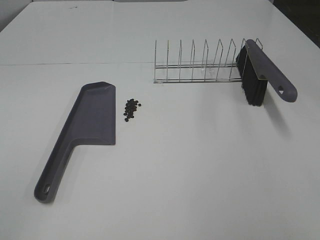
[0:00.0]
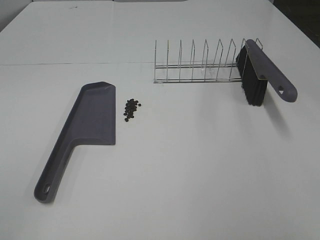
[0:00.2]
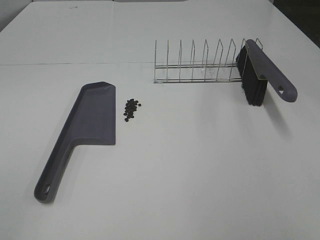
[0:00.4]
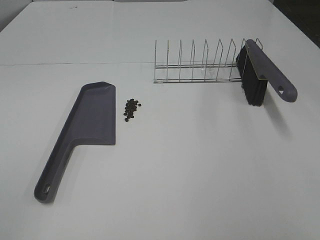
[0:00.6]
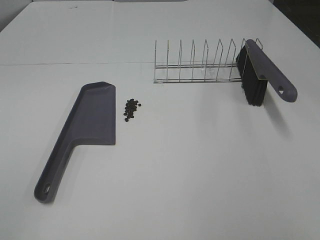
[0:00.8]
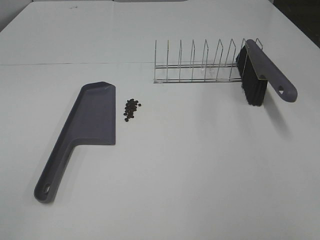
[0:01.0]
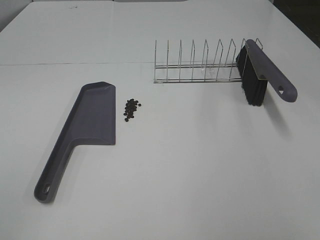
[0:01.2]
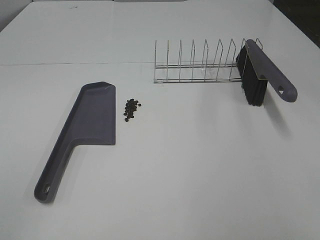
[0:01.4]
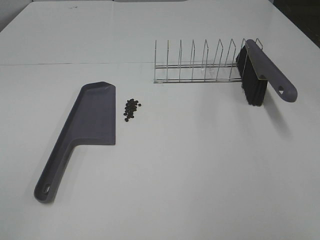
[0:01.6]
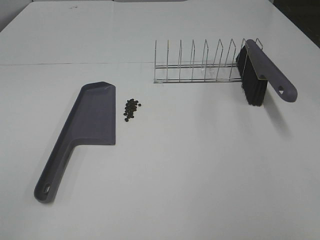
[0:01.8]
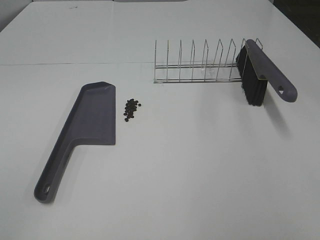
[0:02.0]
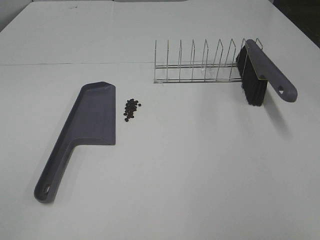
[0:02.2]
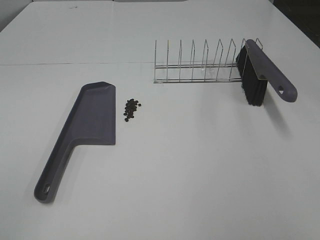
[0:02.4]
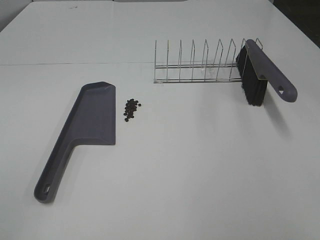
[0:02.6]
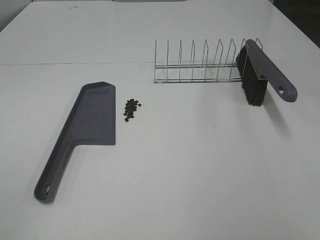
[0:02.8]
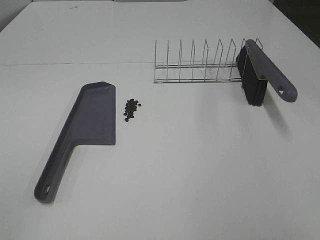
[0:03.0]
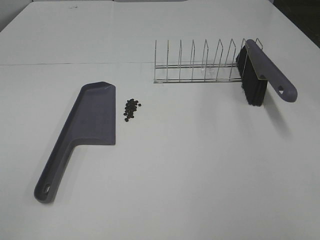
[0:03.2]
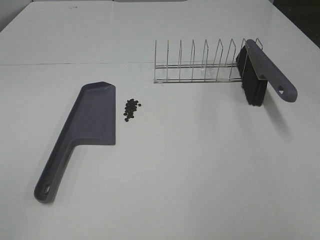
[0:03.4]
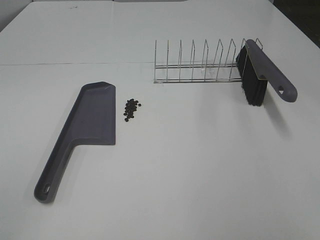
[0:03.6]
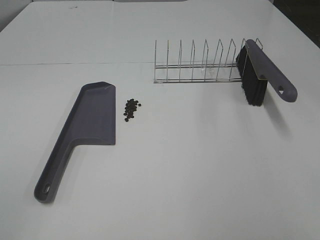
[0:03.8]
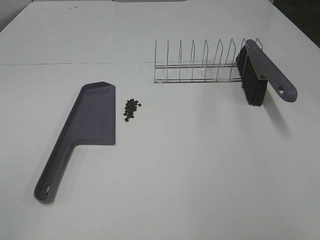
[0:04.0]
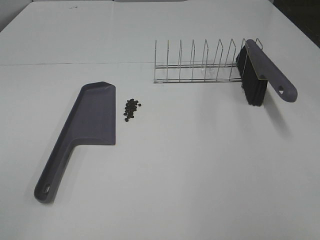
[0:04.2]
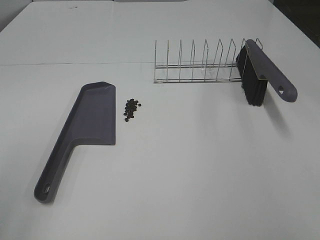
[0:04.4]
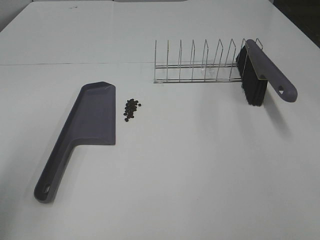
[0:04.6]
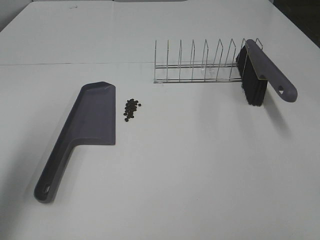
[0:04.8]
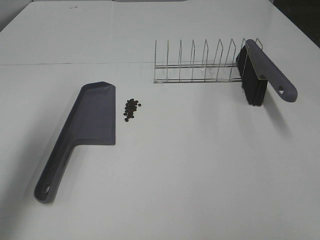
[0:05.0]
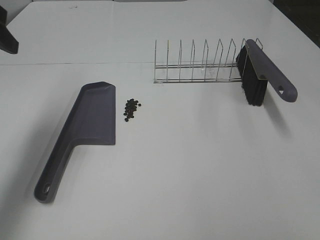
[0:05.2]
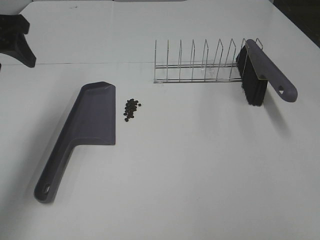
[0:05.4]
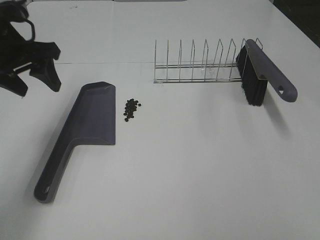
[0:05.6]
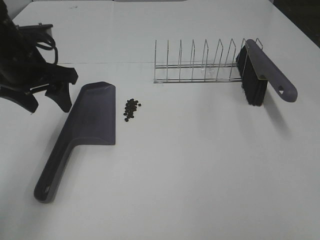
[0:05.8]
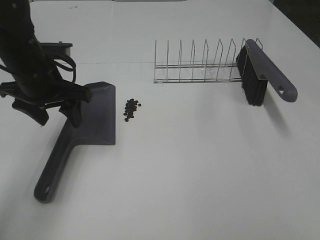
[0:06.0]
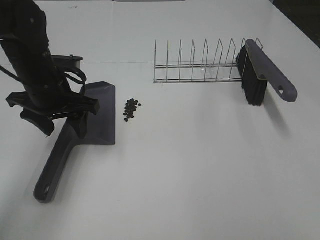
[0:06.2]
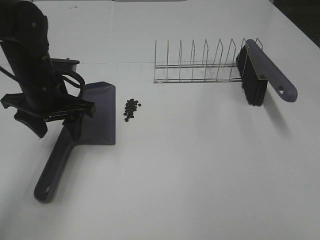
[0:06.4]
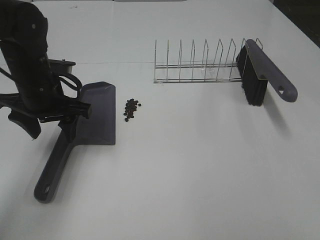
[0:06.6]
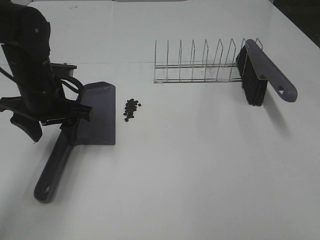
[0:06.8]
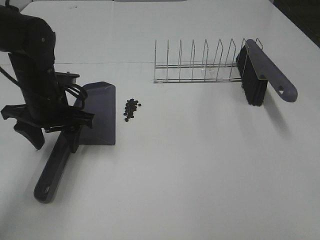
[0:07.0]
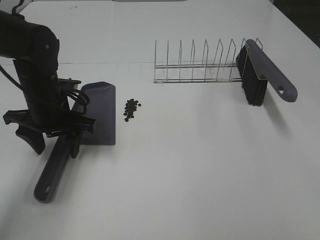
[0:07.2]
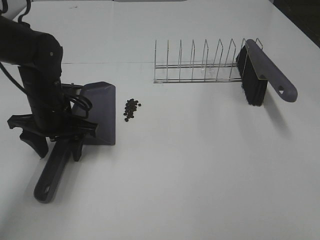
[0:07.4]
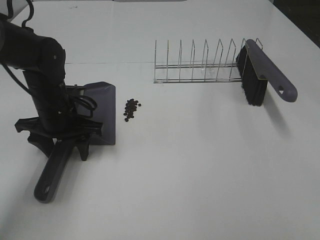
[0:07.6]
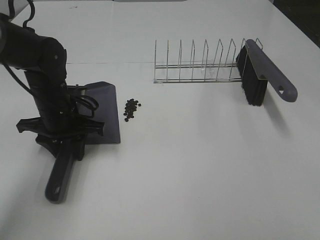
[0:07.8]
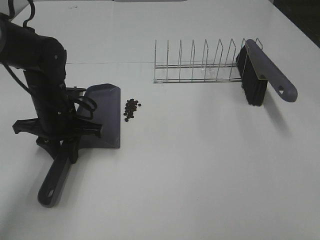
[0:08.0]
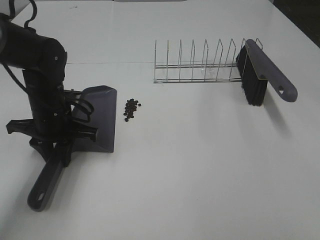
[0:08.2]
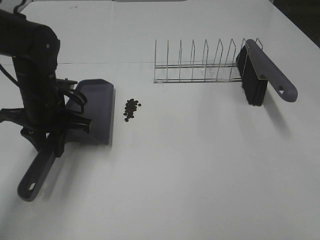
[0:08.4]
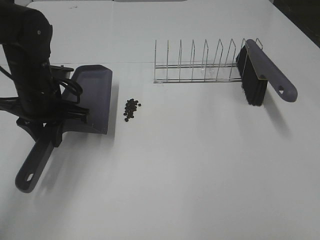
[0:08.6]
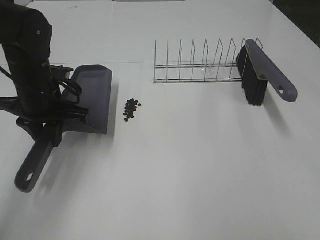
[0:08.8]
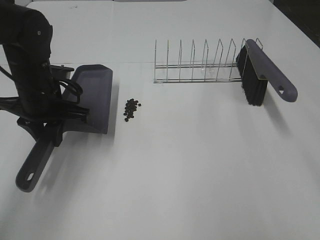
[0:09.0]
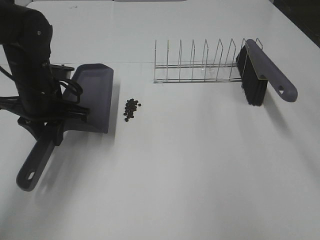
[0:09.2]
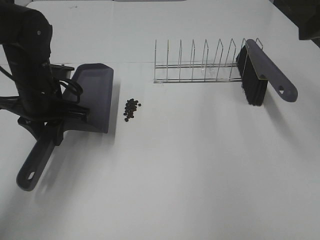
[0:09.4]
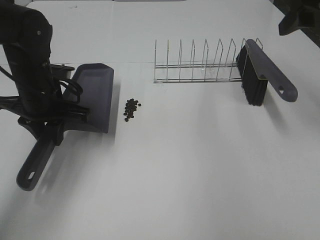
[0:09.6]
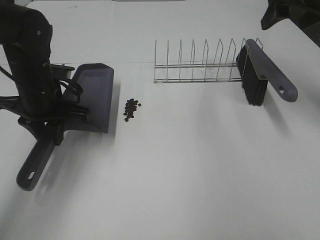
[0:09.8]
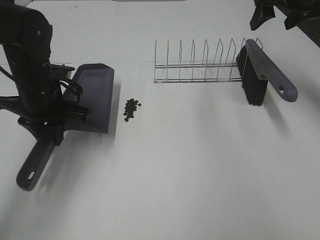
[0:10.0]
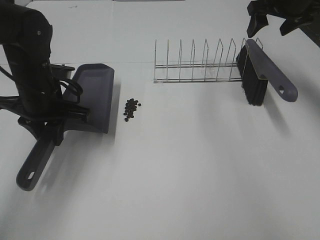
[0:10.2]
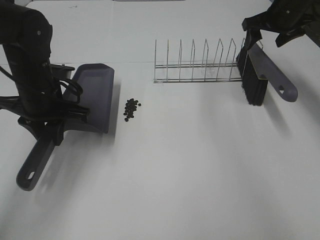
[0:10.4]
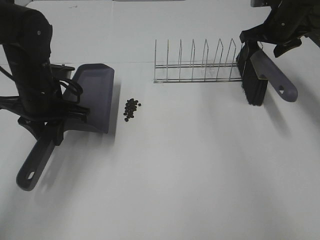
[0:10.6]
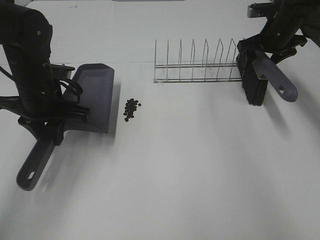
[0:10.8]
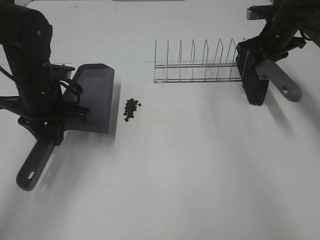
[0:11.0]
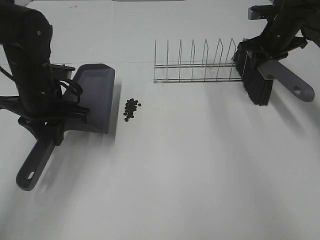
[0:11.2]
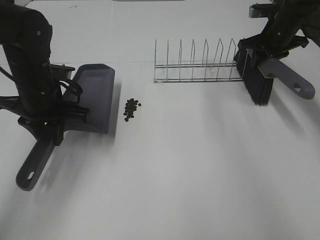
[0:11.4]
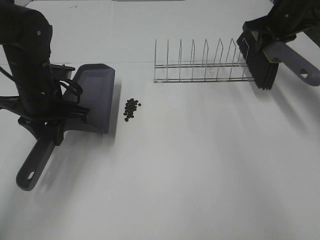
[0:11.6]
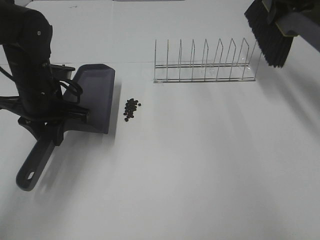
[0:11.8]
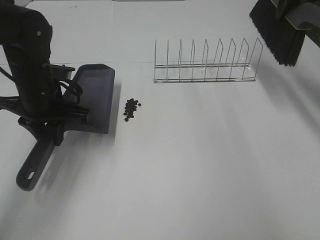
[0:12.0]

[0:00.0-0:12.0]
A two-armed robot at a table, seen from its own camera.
Task of the whole recording: Sweep Coffee Bean.
Step, 0:00.0 to 0:08.0: Left hand: grab the dustpan.
Step, 0:08.6 to 0:11.2: Right hand:grab the broom.
0:00.0 to 0:03.0: Neither gripper changes place.
0:04.4 to 0:06.0: The left gripper moves forward, downward and to the right, some 35 cm.
0:06.0 to 0:07.6: The left gripper is displaced downward by approximately 10 cm.
0:07.6 to 0:09.0: The left gripper heads upward, covering approximately 5 cm, and closes up; the right gripper is displaced forward by approximately 15 cm.
0:09.0 to 0:10.4: The right gripper travels forward by approximately 40 cm.
0:10.4 to 0:12.0: The right gripper heads upward, covering approximately 10 cm, and closes its fingers.

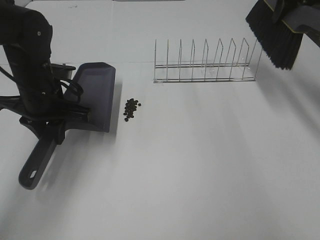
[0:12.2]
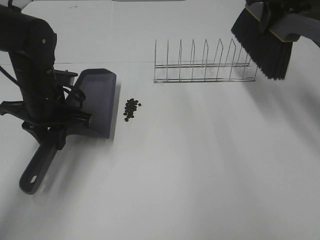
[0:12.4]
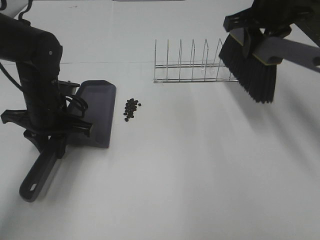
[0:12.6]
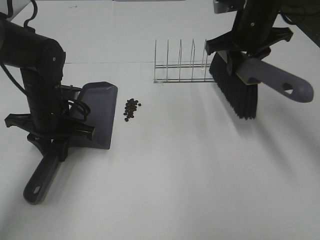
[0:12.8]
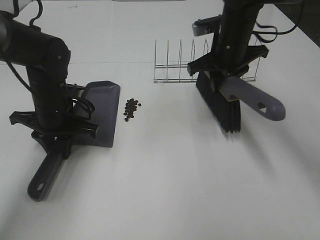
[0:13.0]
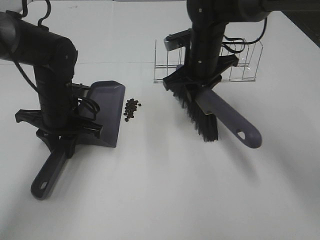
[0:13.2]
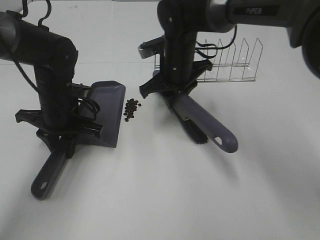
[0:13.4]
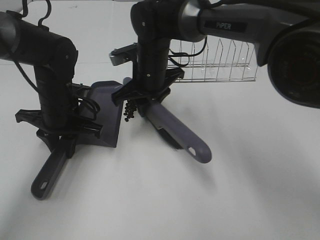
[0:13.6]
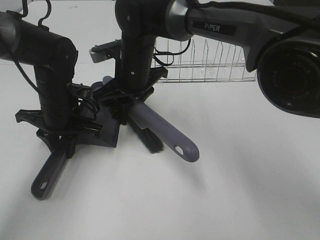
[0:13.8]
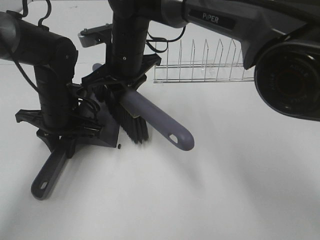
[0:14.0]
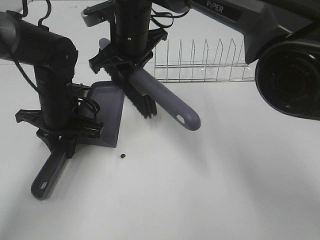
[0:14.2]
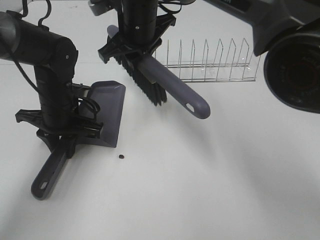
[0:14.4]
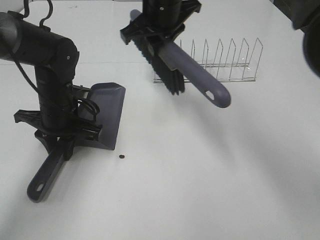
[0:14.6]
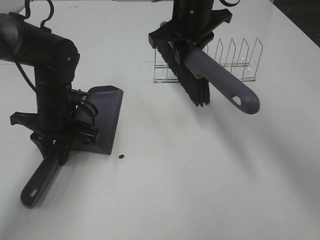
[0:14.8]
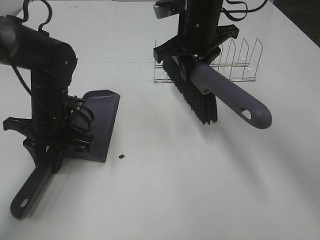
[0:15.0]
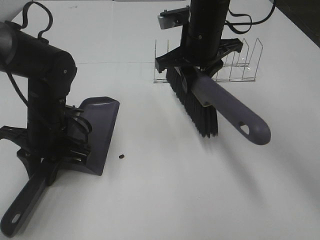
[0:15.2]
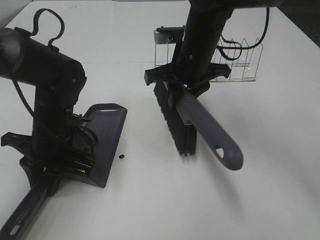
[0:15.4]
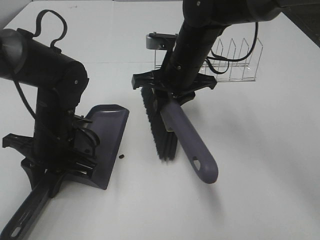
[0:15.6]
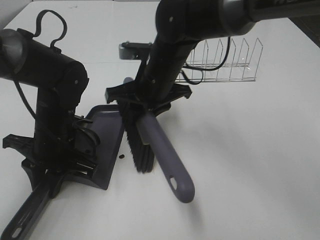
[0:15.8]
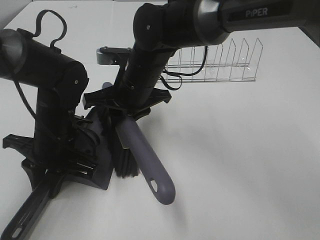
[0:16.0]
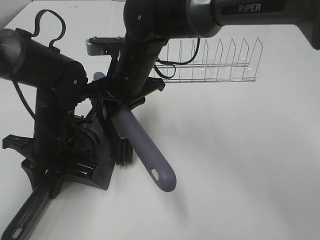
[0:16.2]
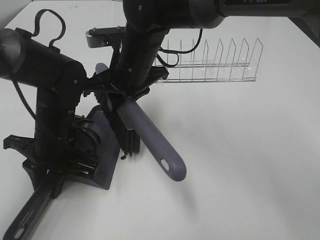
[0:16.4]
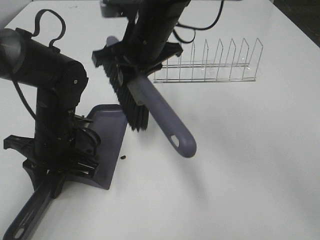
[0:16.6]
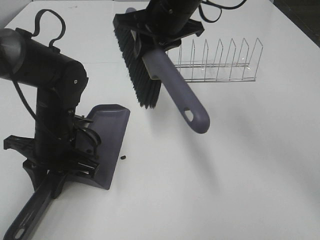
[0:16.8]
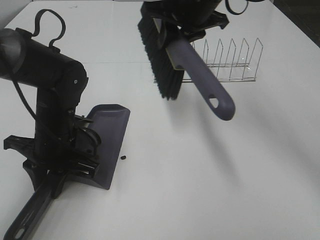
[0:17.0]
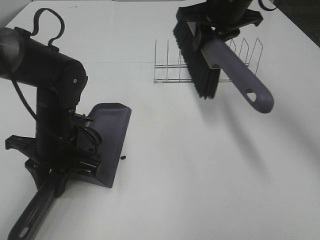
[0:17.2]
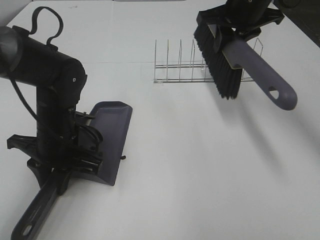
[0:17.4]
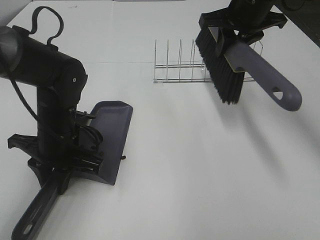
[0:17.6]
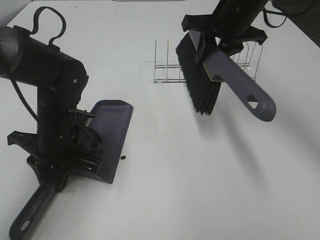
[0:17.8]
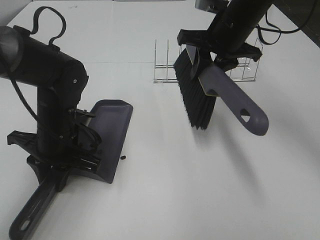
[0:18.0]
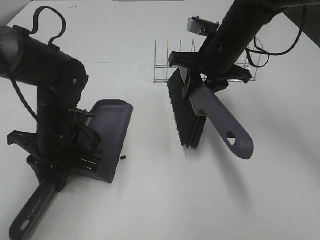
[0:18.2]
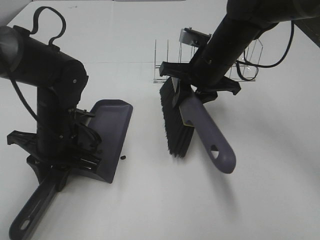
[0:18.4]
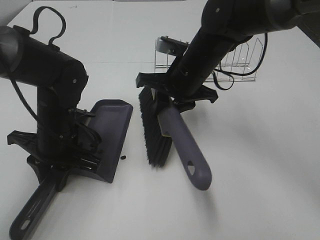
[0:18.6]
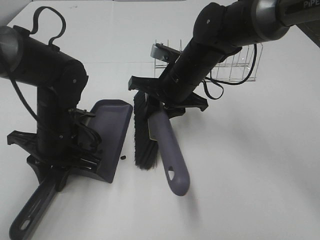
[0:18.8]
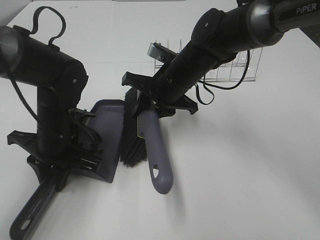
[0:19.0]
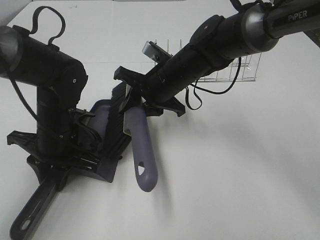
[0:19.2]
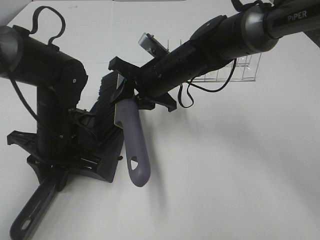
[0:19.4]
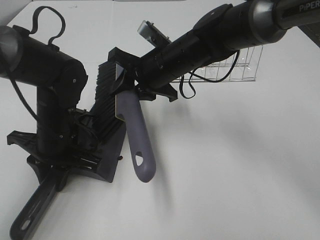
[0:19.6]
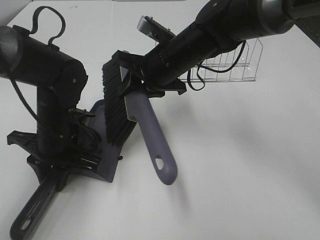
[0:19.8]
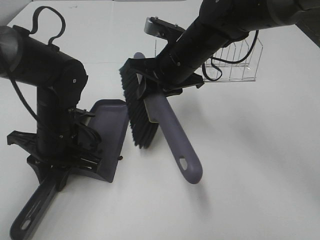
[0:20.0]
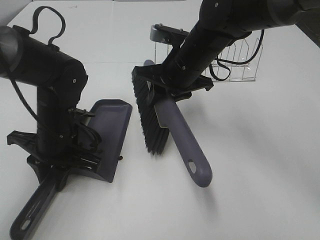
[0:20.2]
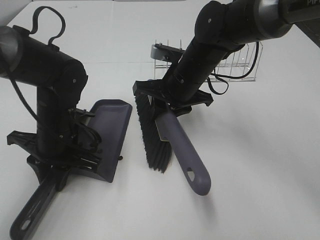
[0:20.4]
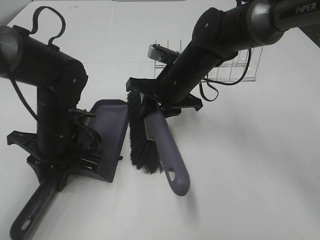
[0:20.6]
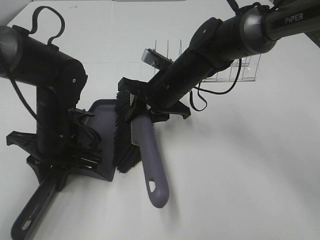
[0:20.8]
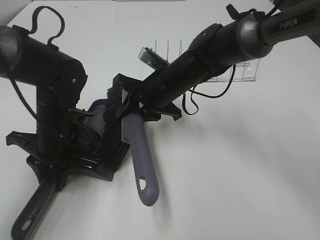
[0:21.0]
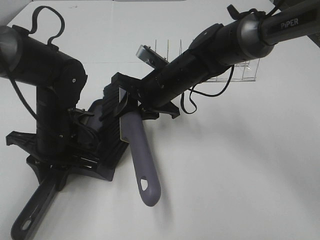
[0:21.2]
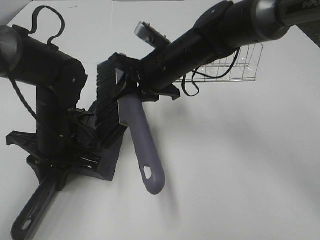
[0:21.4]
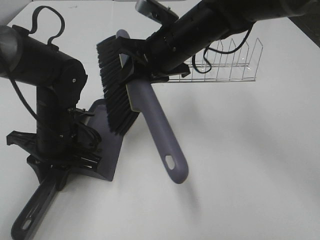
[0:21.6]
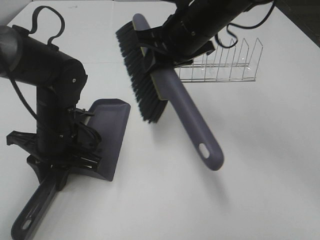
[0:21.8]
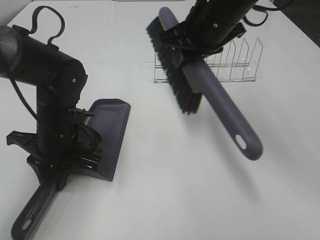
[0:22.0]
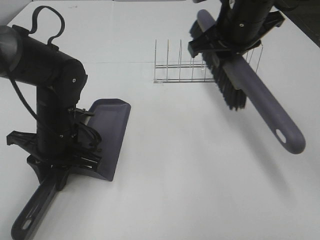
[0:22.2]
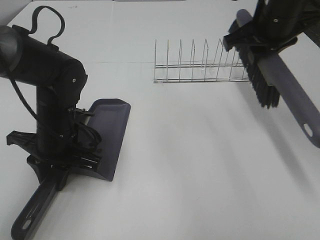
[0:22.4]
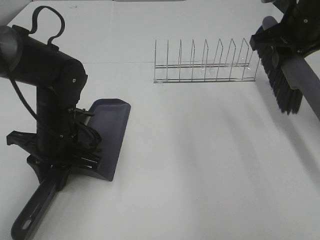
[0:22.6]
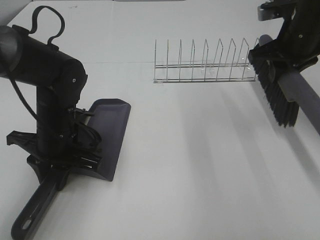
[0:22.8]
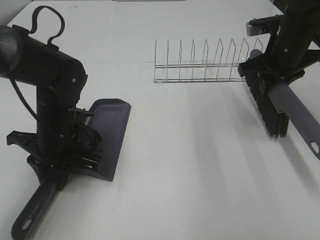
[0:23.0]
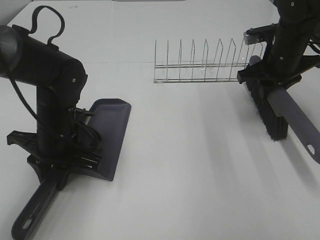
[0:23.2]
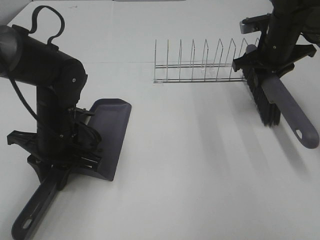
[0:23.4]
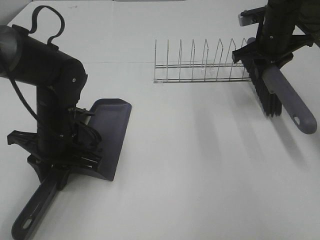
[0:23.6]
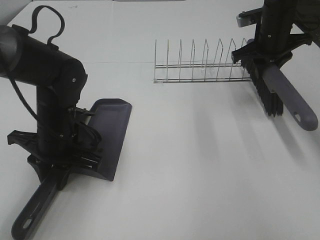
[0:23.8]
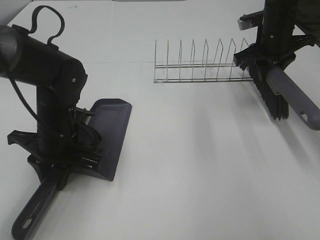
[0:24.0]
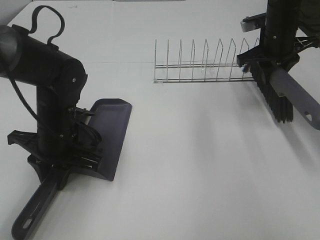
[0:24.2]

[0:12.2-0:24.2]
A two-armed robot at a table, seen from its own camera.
Task of the whole recording: Sweep Coffee Bean.
Step, 0:12.2 to 0:21.4: Right hand:sweep the coffee beans into the dustpan.
0:12.2 to 0:13.8: The left gripper shifts approximately 5 cm downward; the right gripper goes roughly 35 cm to the left and downward.
0:13.8 to 0:15.2: The right gripper goes approximately 15 cm to the right and upward.
0:15.2 to 0:16.6: The right gripper moves to the left, some 10 cm.
0:16.6 to 0:18.2: The right gripper goes roughly 10 cm to the right.
0:18.2 to 0:19.8: The right gripper moves to the left, roughly 10 cm.
0:19.8 to 0:21.2: The grippers move only a little.
0:21.2 to 0:22.6: The right gripper is displaced to the right and upward by approximately 25 cm.
0:22.6 to 0:24.2: The right gripper moves forward and downward, approximately 10 cm.
